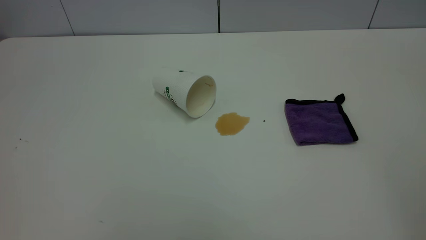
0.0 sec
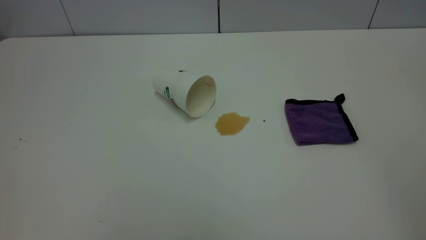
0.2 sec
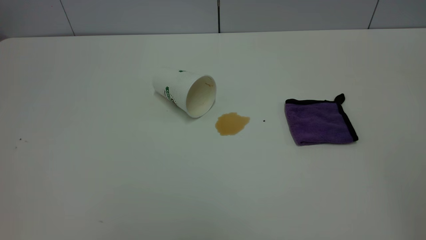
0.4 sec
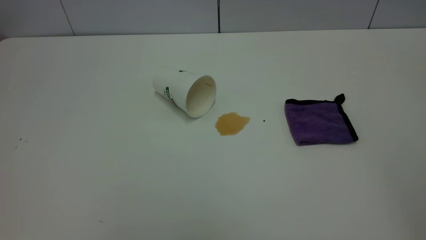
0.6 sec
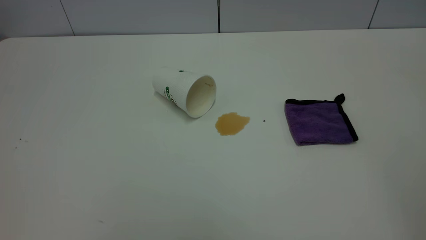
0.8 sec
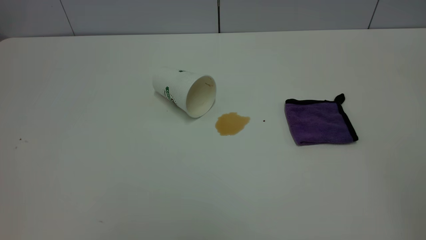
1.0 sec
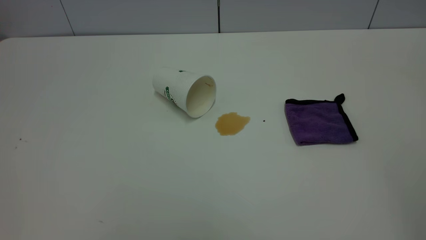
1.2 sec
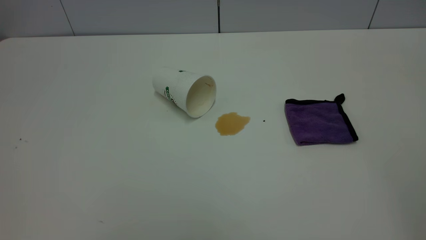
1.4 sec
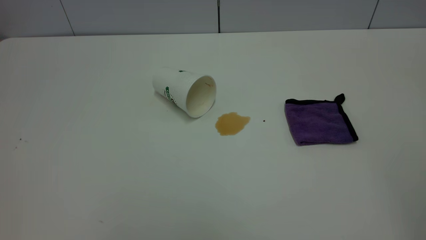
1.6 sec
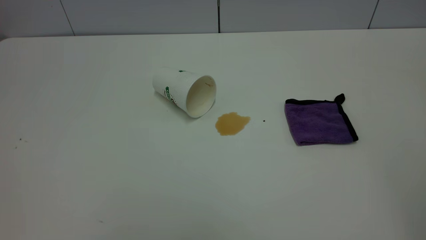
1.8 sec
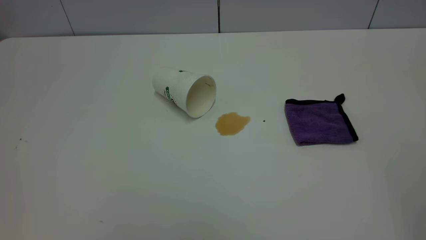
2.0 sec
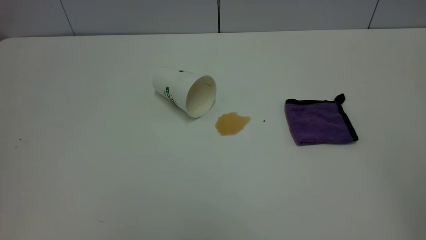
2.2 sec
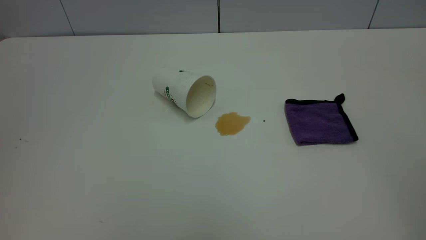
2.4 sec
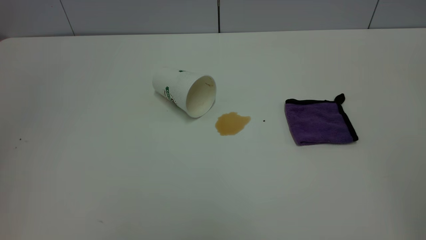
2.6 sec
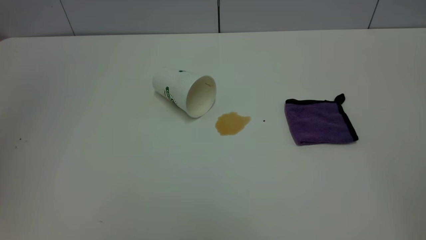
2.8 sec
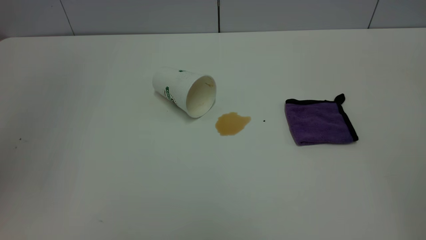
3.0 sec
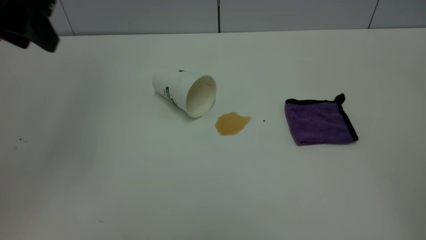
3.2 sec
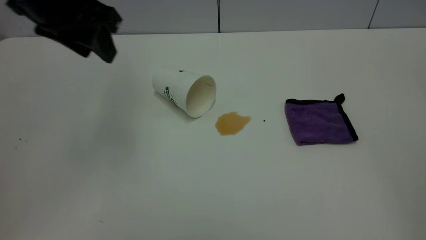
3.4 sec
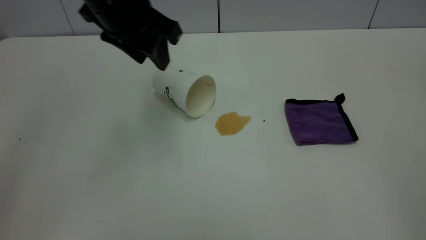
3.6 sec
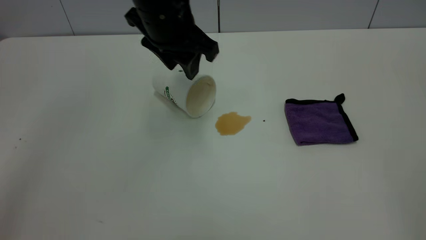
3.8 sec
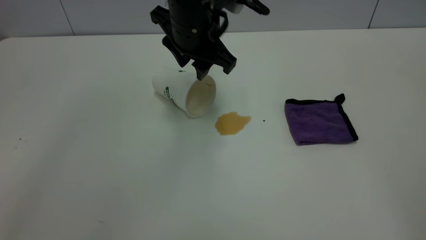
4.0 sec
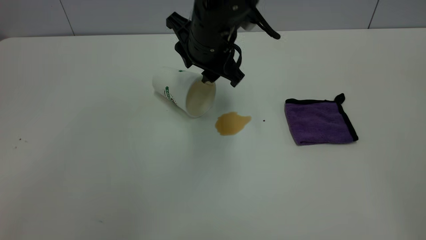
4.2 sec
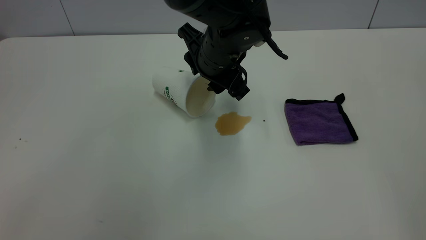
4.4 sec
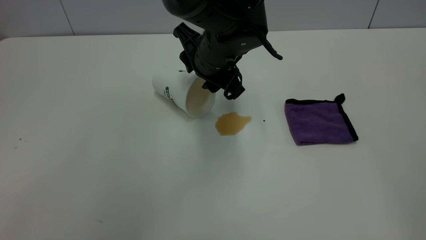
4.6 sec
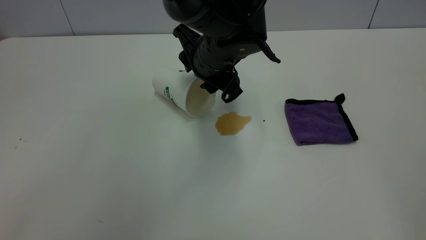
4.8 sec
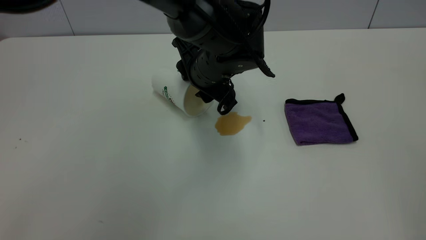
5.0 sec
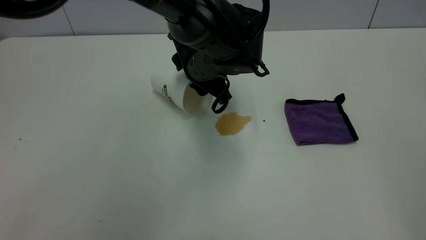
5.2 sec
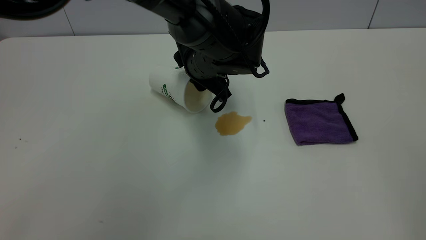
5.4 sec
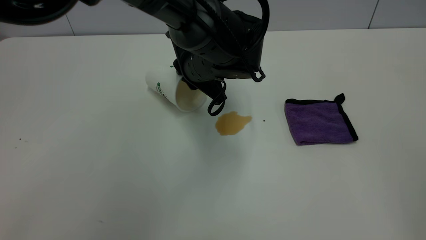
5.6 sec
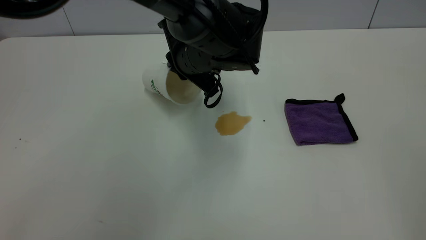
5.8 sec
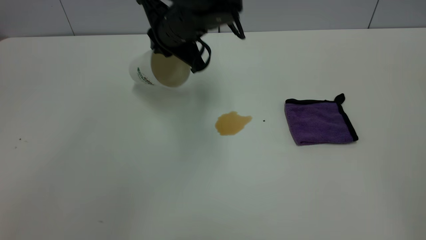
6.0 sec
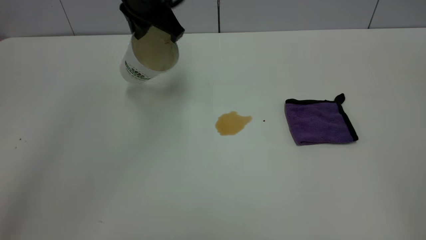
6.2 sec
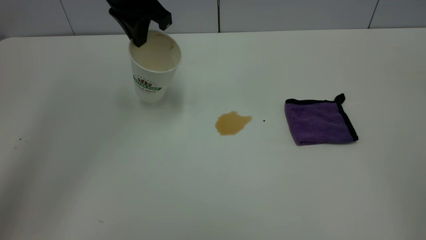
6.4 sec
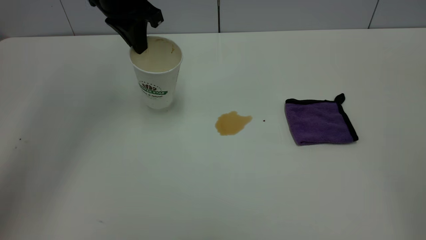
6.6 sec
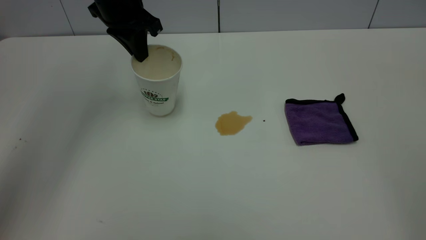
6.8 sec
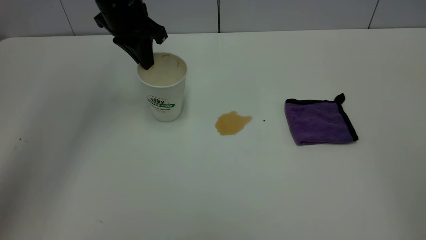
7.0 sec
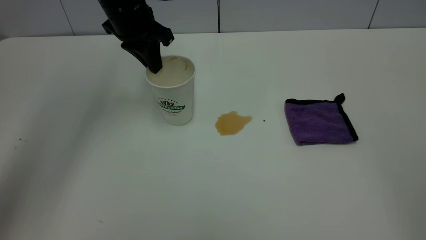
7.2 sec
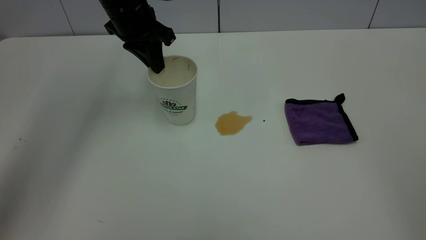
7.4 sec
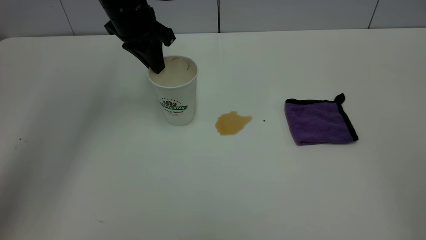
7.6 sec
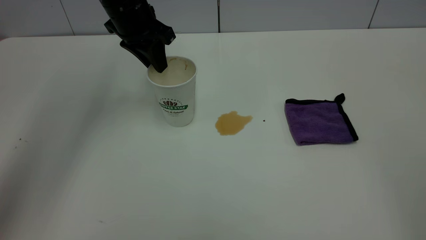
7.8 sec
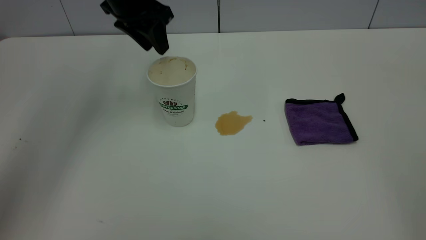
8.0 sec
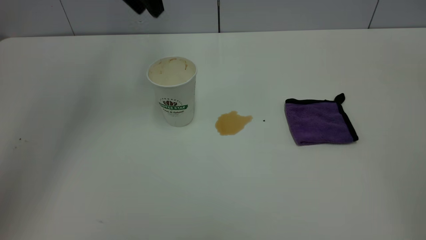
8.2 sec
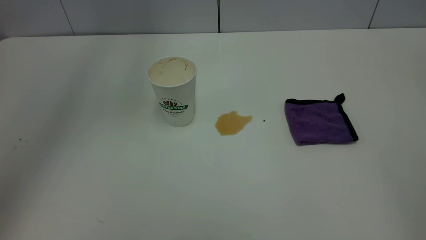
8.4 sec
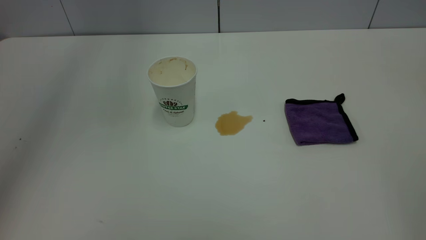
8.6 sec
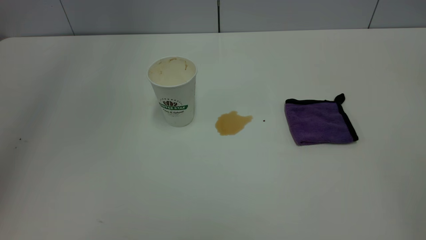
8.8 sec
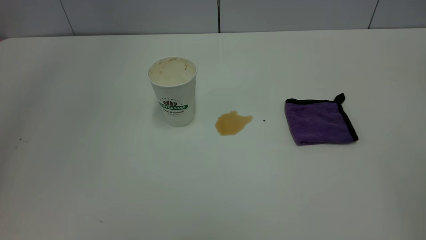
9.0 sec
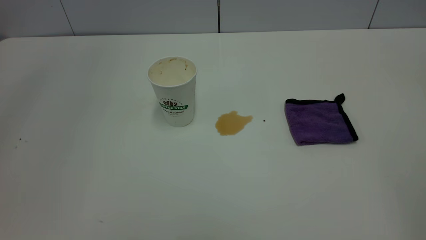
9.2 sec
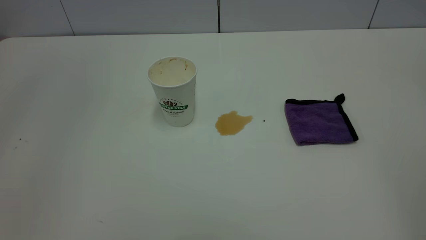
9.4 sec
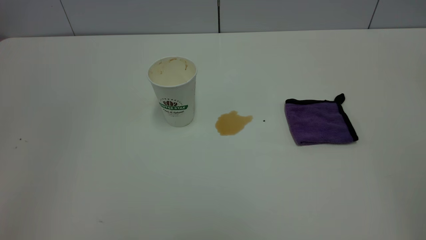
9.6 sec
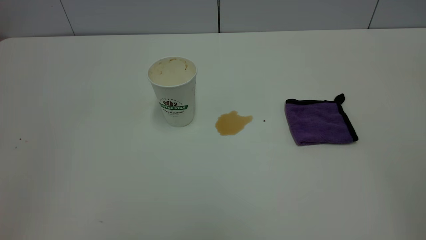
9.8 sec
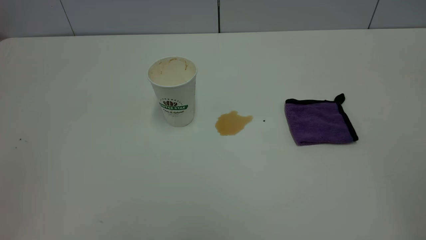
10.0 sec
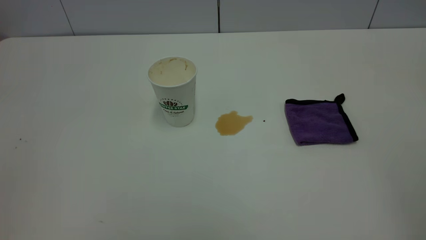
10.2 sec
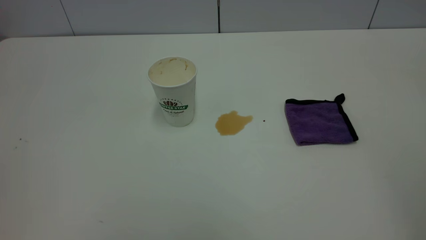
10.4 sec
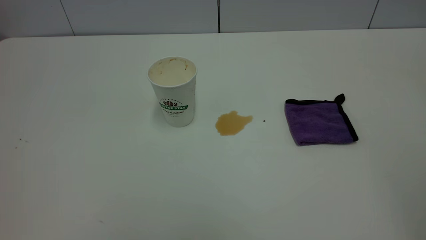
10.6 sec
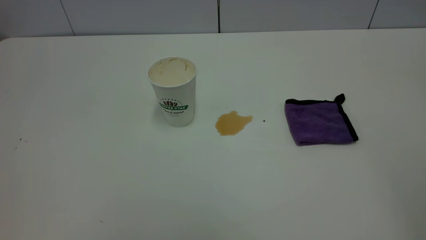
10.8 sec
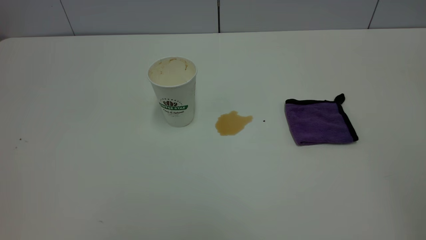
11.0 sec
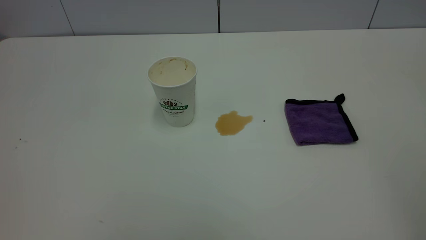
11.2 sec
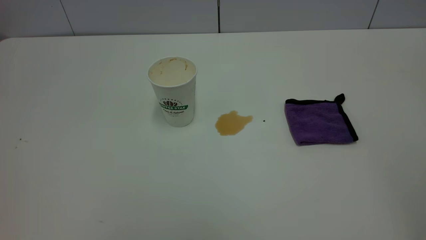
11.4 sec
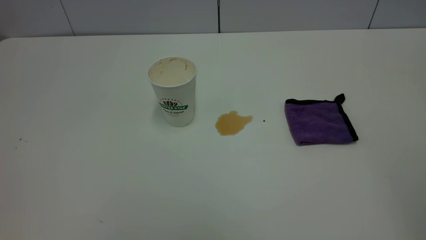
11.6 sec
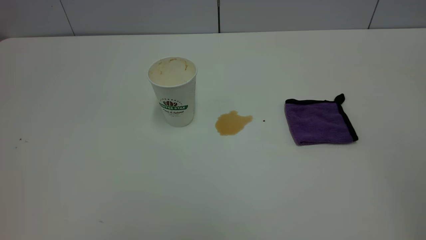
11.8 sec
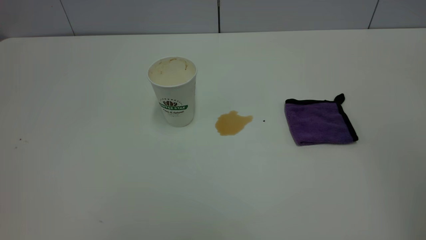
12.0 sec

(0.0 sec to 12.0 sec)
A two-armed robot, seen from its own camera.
Task of the whole recording: the left gripper pick up the fallen cup and place it upright, the right gripper grasp the purple rag and wipe the tea stain on the table, the right gripper put the purple rag back in its original position.
Step, 0.0 sec - 8.0 sec: Stand the paper cup upright.
0.0 sec - 1.6 sec: Both grippers stay about where they are.
3.0 sec - 4.4 sec: The left gripper is displaced to the right, downward and forward by some 35 cm.
4.4 sec - 6.0 sec: The left gripper shifts approximately 5 cm to the left, and closes its fingers.
6.0 sec - 7.6 sec: The left gripper is displaced to the left by some 10 cm.
7.6 sec - 9.0 sec: The left gripper goes about 40 cm upward and backward, and opens up.

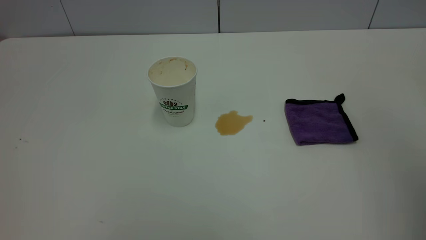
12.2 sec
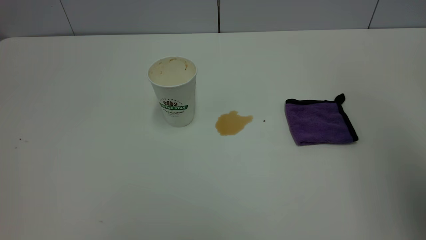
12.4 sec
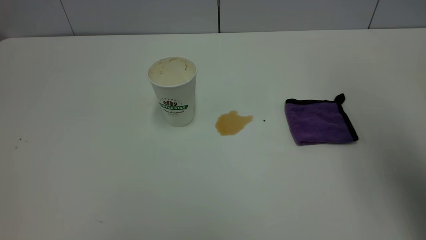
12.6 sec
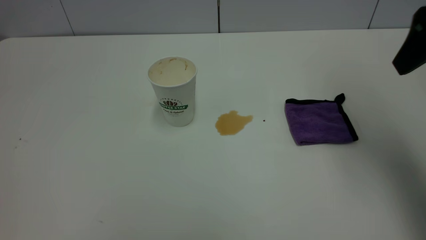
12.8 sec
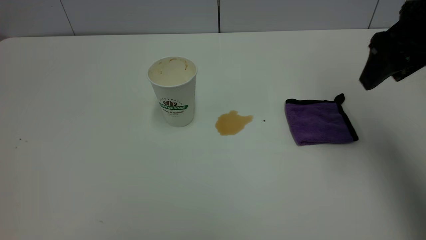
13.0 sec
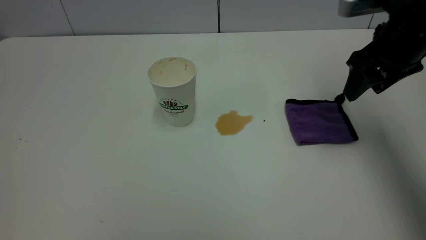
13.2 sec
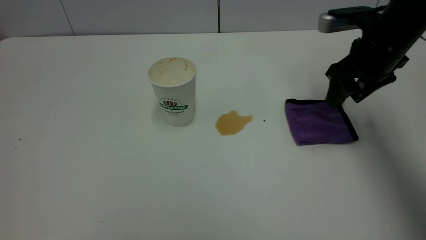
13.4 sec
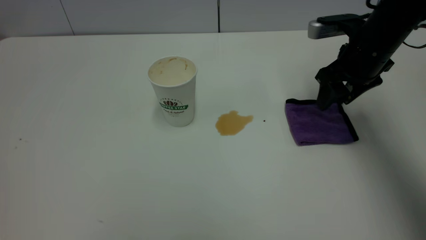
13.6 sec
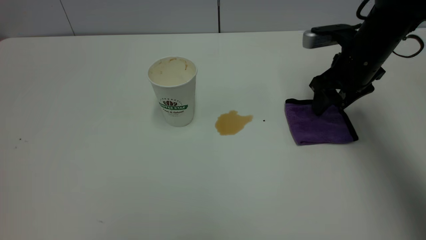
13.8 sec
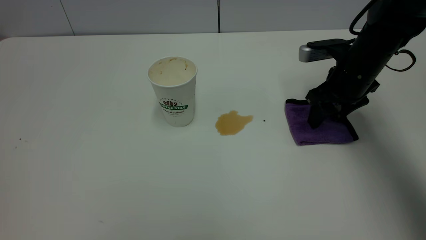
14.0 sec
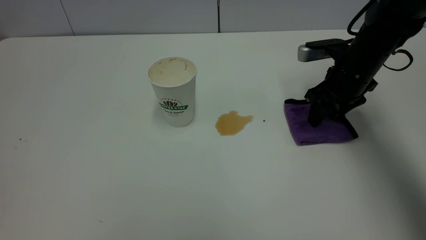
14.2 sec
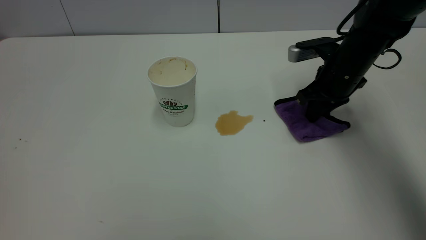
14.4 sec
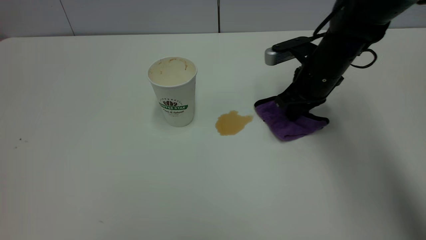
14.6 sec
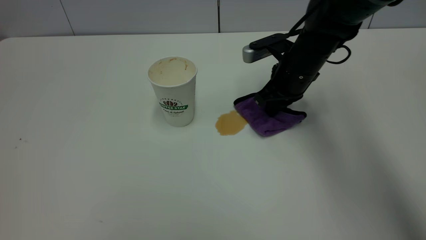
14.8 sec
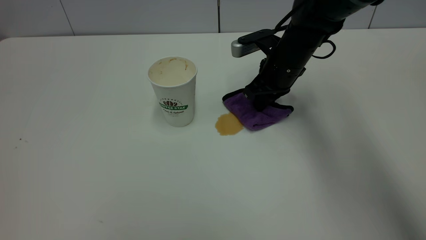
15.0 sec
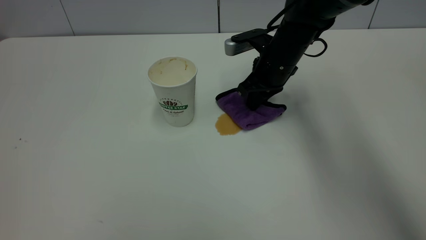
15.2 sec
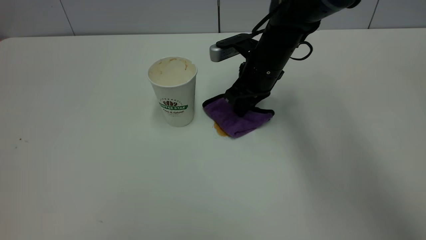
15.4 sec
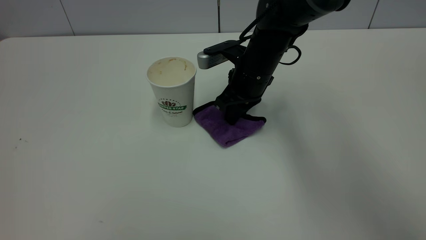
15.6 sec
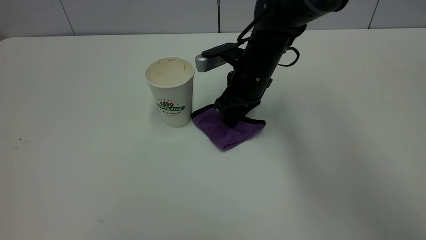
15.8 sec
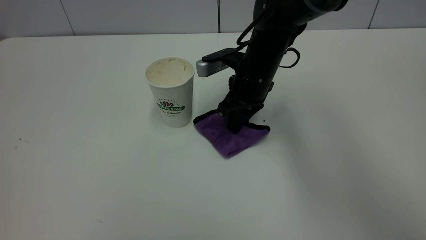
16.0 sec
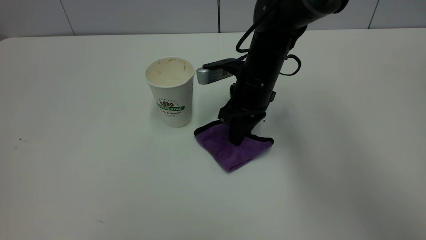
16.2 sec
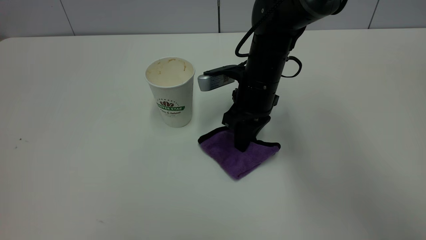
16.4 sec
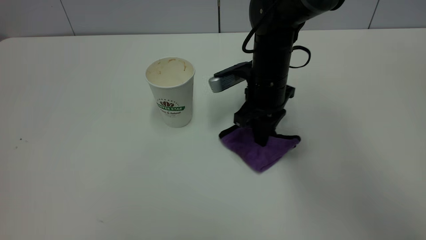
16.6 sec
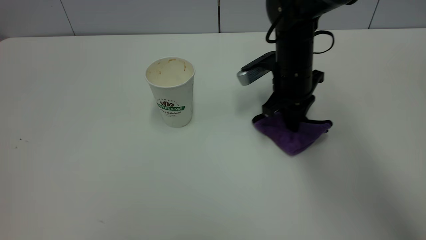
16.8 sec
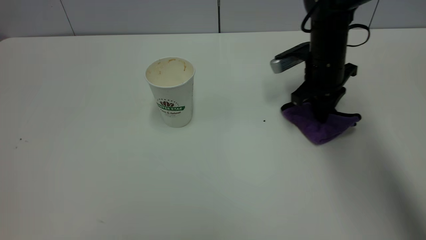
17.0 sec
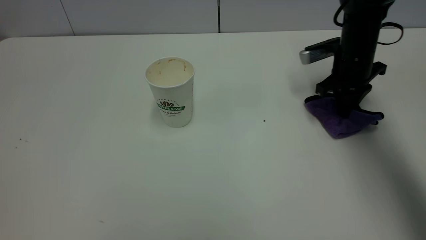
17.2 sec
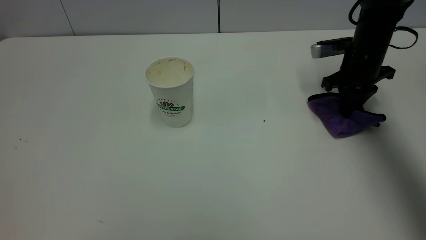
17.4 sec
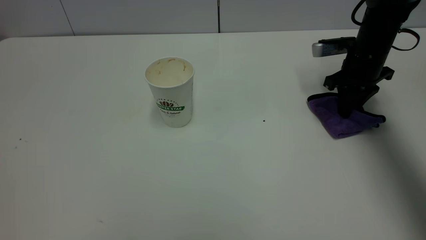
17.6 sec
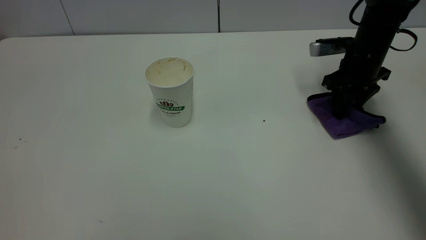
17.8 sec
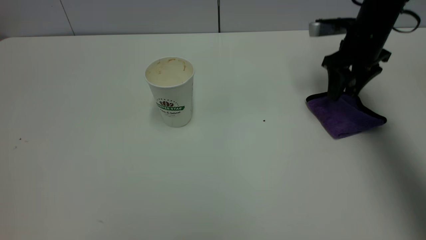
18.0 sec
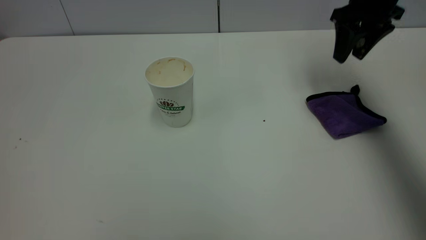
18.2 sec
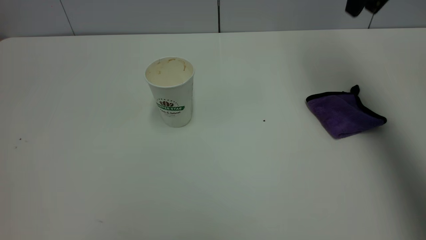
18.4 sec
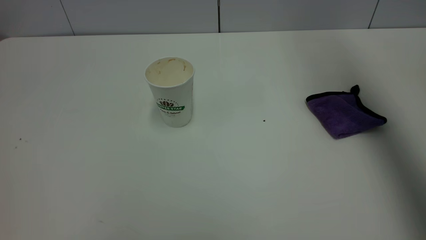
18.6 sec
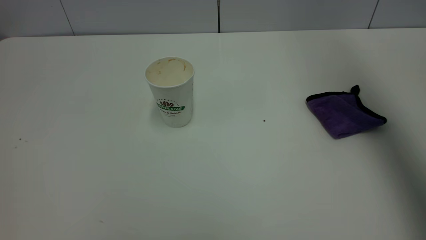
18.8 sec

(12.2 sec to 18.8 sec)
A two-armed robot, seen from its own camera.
Task of the whole recording: the left gripper pick up the fallen cup and place it upright, the right gripper grasp the purple rag and wipe the tea stain on the table, the right gripper put the purple rag back in its original position.
Step, 12.2 sec - 18.2 sec: Wipe the stains off the table with a rag.
12.2 sec - 13.8 sec: The right gripper travels forward and downward by about 40 cm.
13.8 sec - 15.4 sec: The right gripper moves to the left, approximately 15 cm, and closes.
15.4 sec - 17.2 sec: The right gripper heads to the right, covering some 15 cm.
17.2 sec - 18.8 sec: The right gripper moves upward, roughly 40 cm, and opens up.
